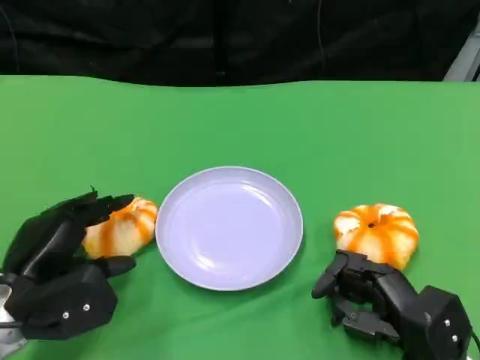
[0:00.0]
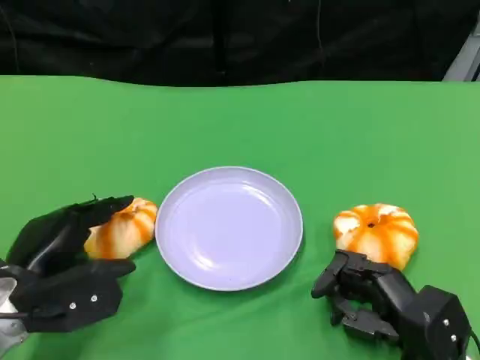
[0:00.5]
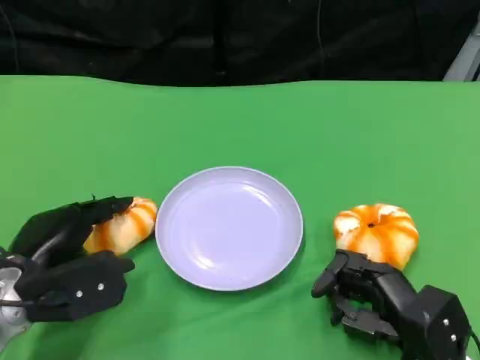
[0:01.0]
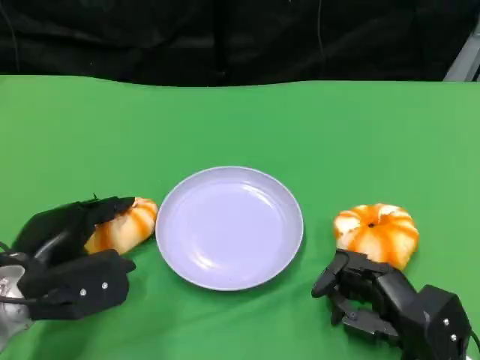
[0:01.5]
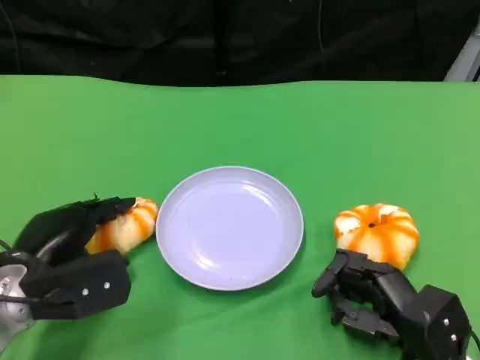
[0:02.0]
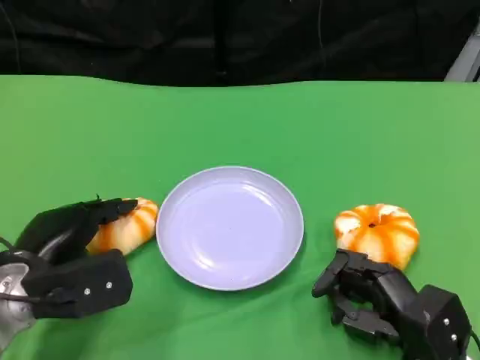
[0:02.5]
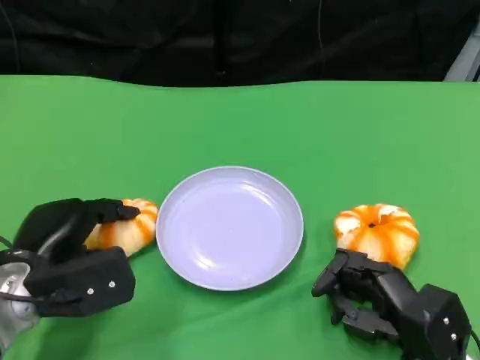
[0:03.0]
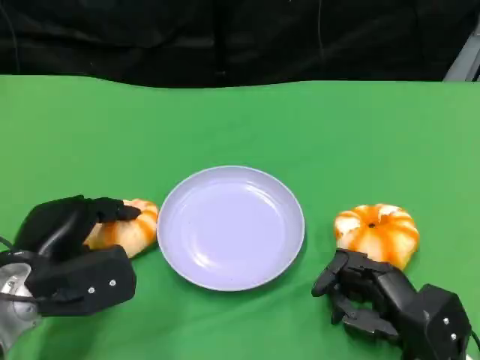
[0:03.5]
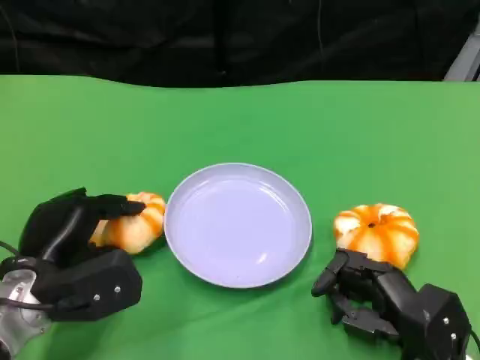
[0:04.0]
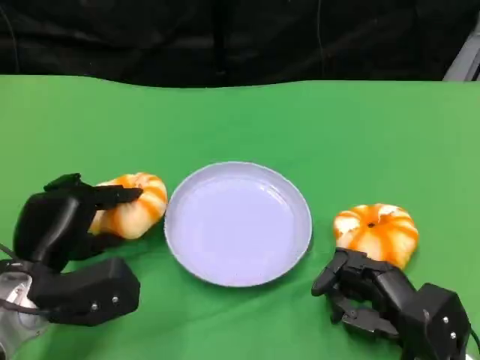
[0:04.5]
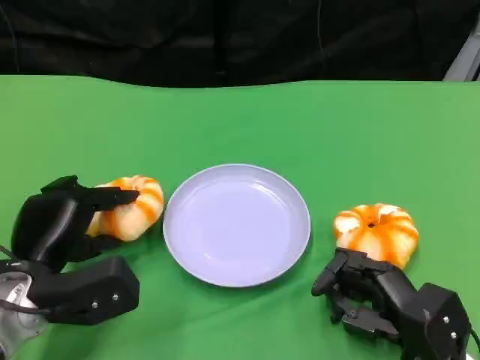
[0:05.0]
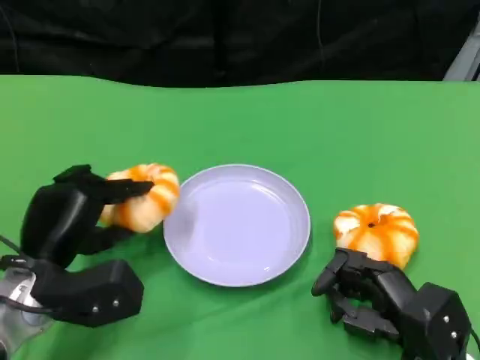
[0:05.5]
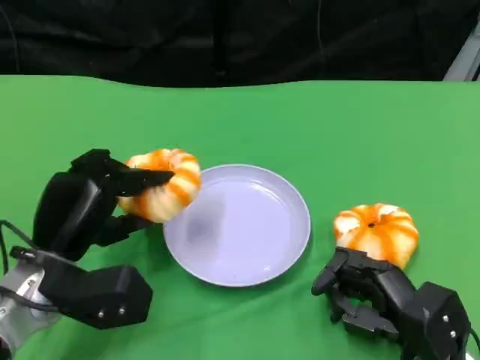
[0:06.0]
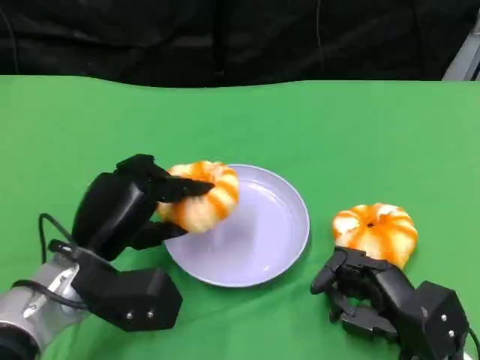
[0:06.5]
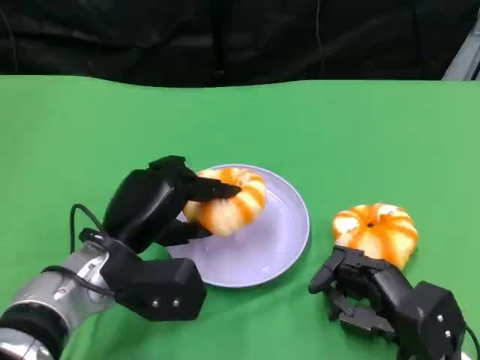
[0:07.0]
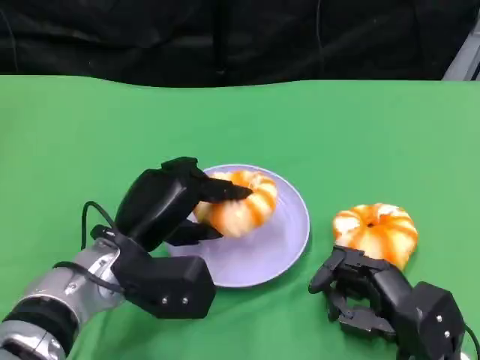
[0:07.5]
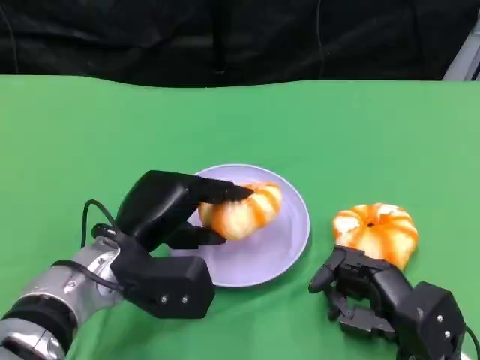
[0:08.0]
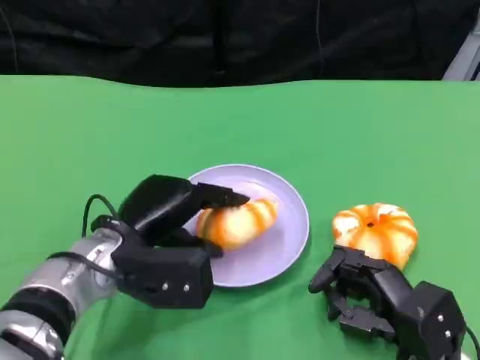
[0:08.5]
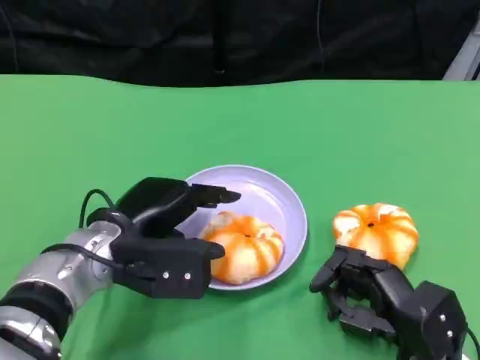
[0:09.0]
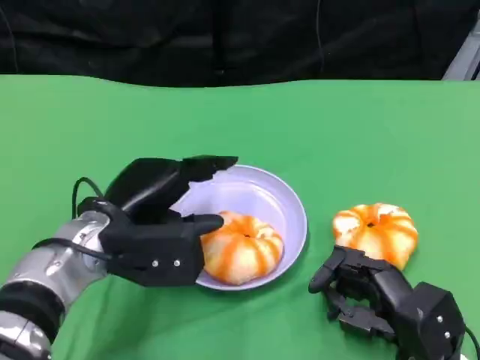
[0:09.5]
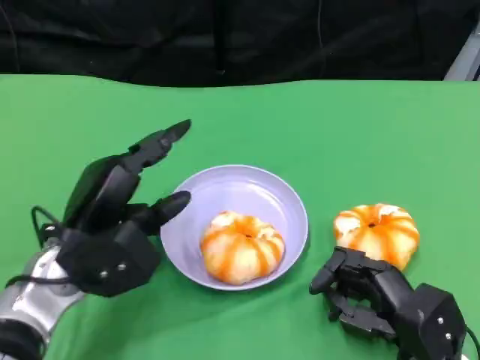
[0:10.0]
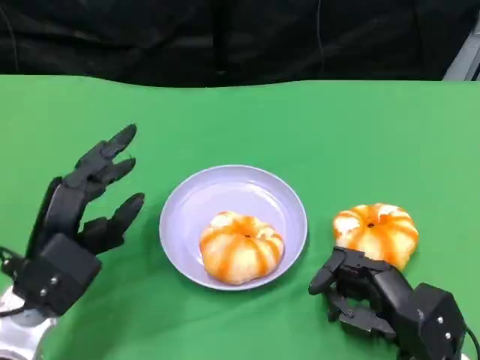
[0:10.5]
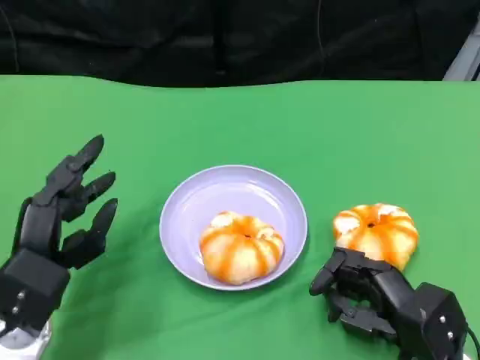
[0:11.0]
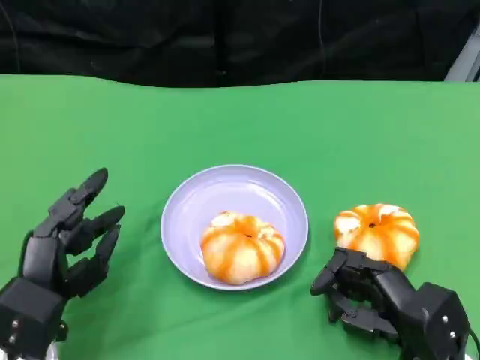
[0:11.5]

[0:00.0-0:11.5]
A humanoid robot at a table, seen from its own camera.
Task of the whole recording: Grasp the bread from the table and place it into the plate.
0:00.0 to 0:04.0: The hands stay close to where they were, moving slightly.
0:06.0 to 0:07.5: The left hand travels to the right by approximately 5 cm.
0:09.5 to 0:11.5: The left hand shifts roughly 10 cm backward, downward and to the left.

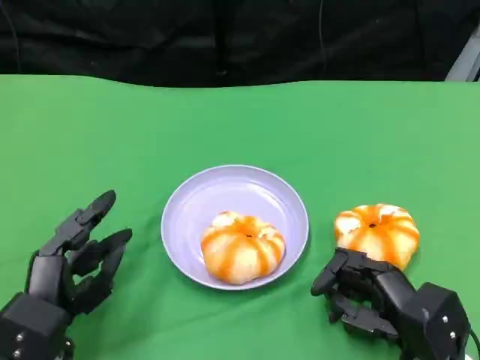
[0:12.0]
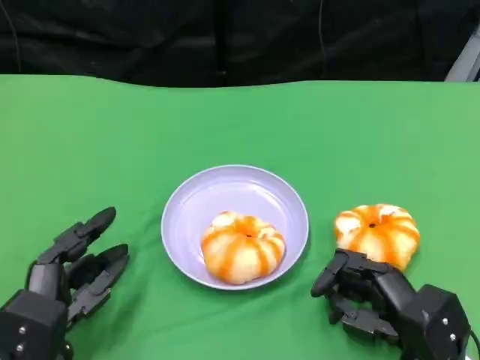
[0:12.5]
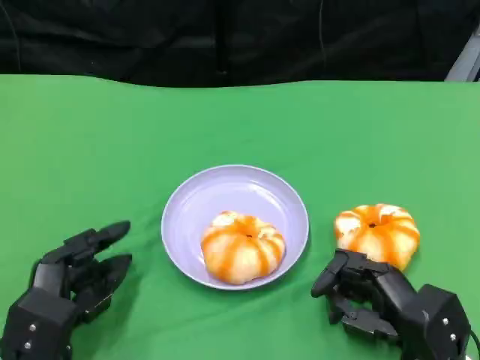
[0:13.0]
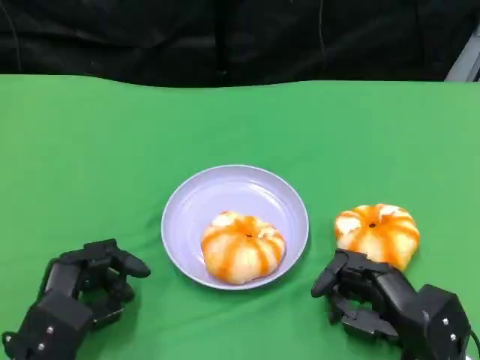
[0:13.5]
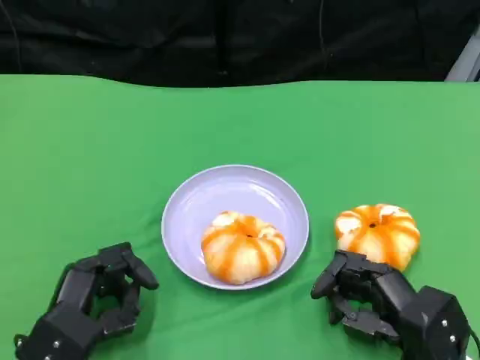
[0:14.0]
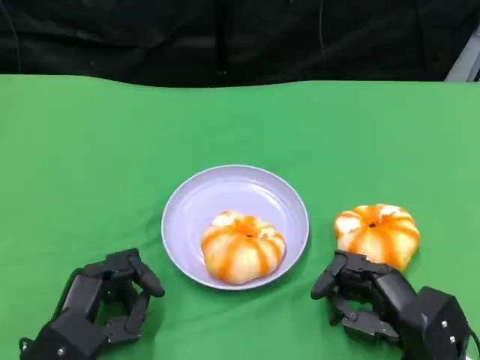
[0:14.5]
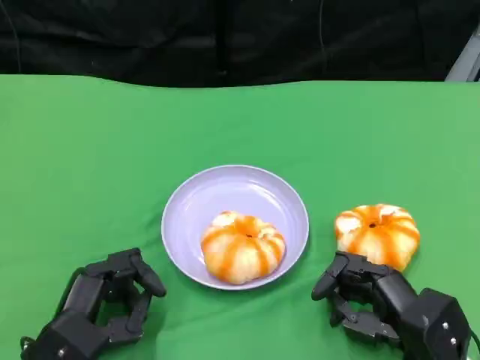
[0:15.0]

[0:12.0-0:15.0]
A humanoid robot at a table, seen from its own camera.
Task of the whole recording: Grasp the bread from the table and place it into the plate.
0:12.0 to 0:15.0: There are only small adjustments of the hands.
